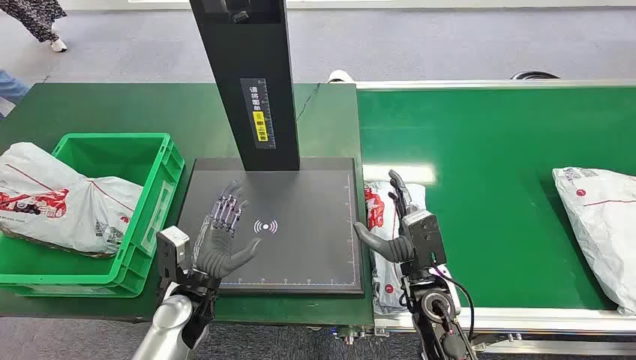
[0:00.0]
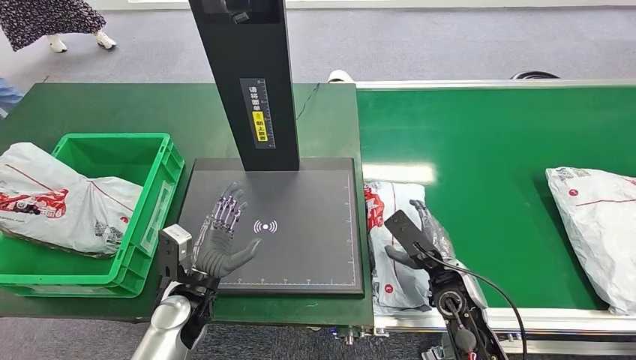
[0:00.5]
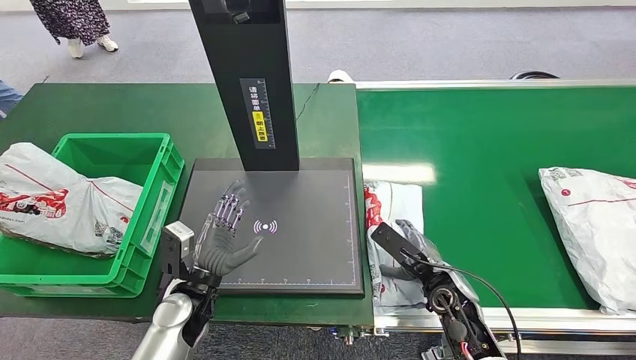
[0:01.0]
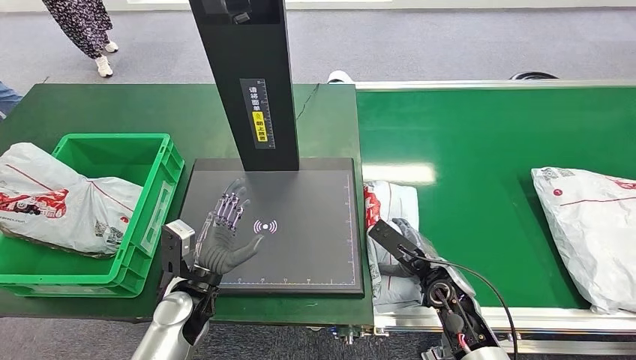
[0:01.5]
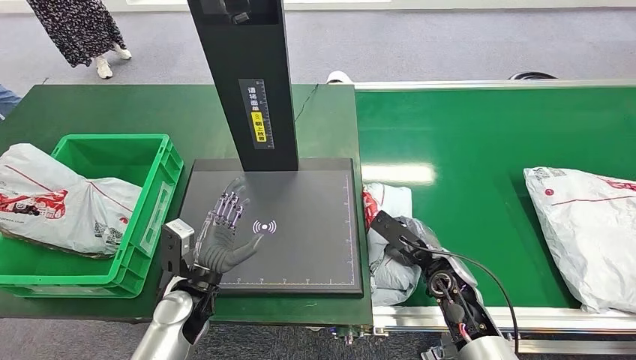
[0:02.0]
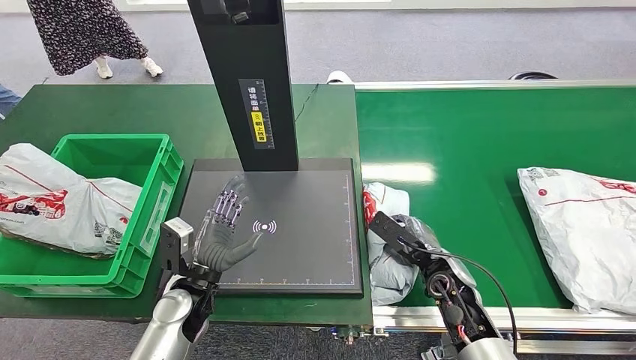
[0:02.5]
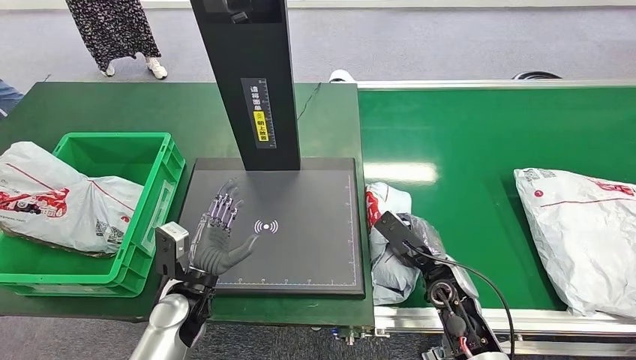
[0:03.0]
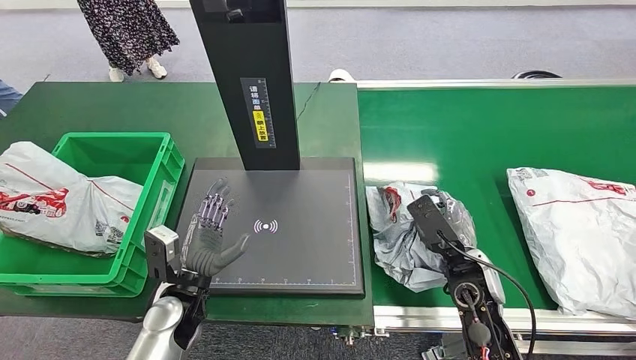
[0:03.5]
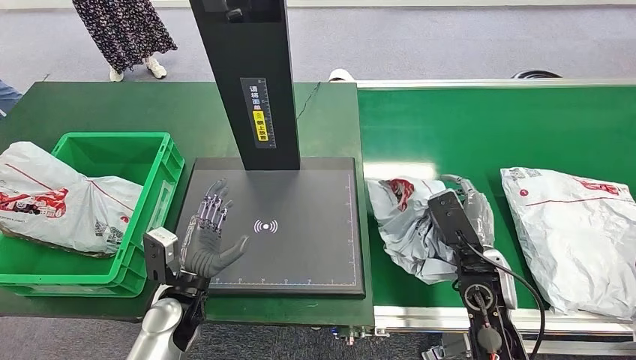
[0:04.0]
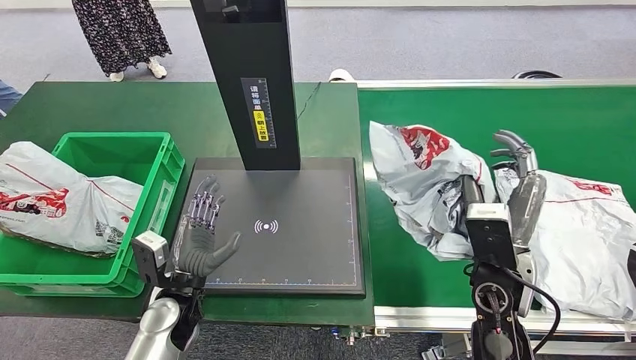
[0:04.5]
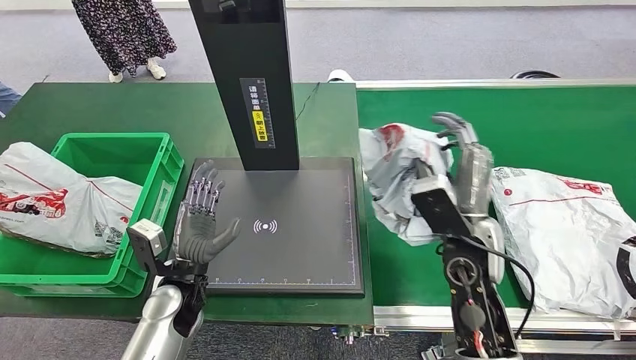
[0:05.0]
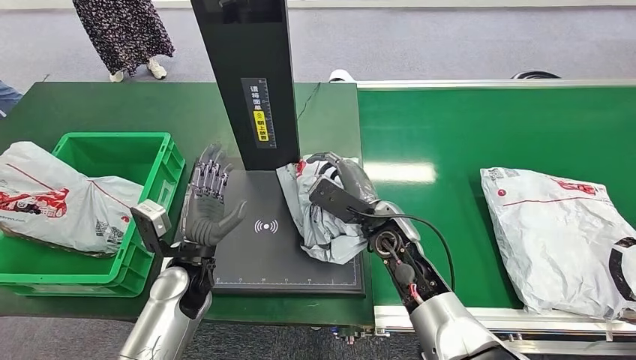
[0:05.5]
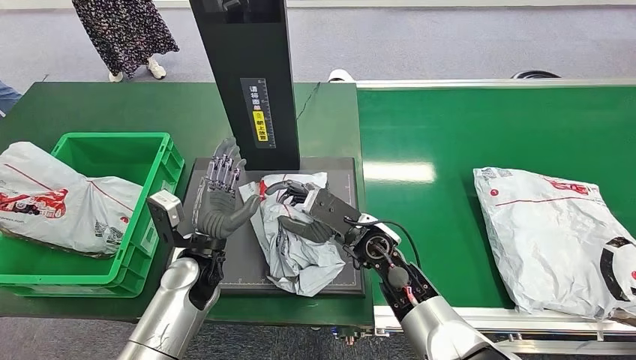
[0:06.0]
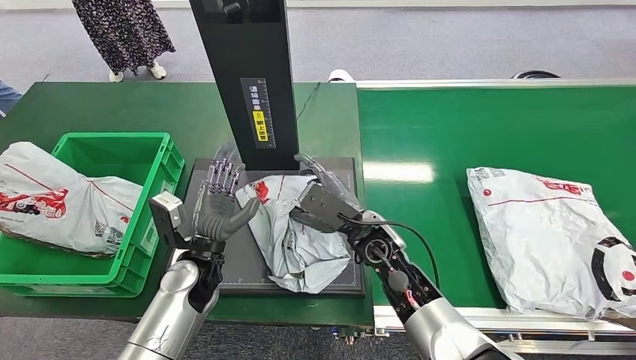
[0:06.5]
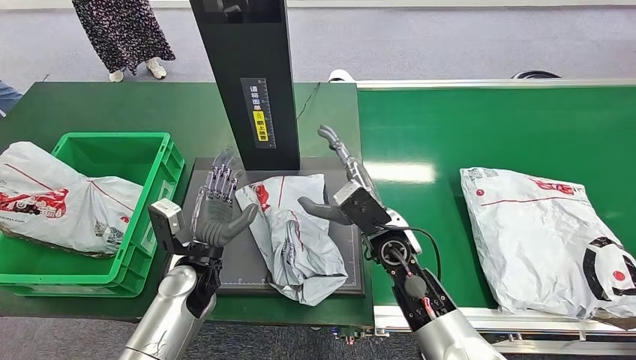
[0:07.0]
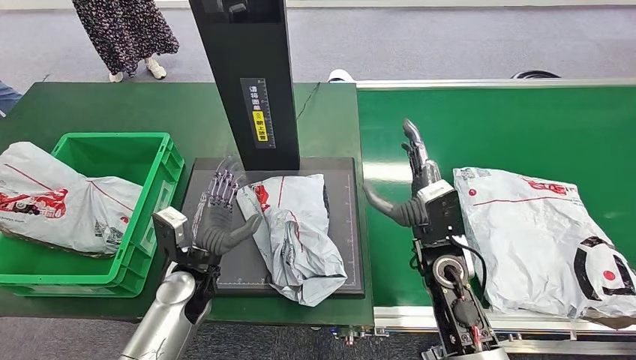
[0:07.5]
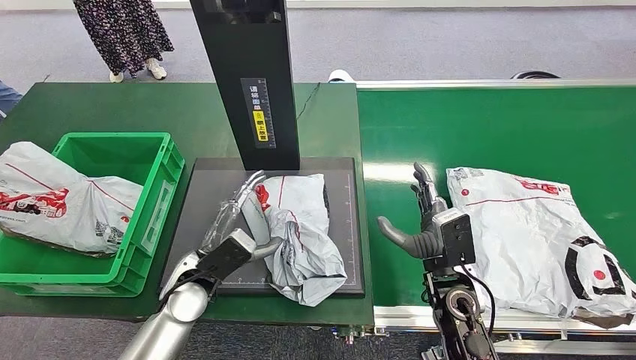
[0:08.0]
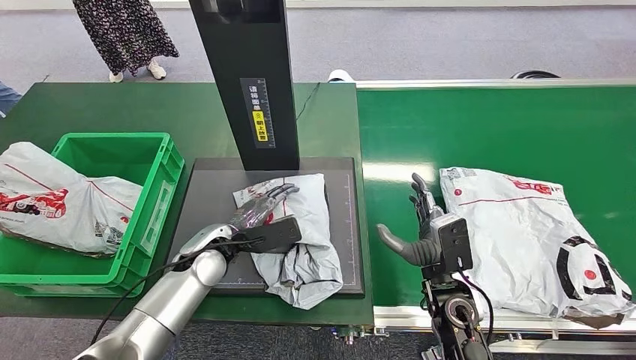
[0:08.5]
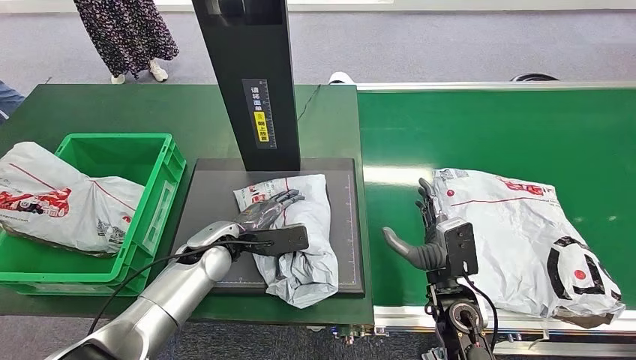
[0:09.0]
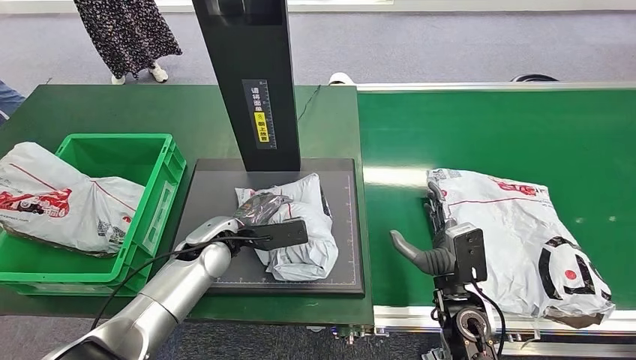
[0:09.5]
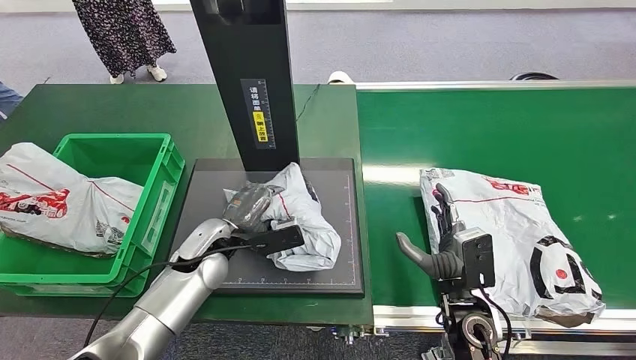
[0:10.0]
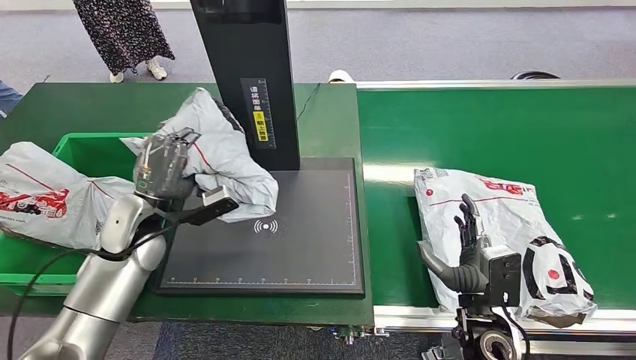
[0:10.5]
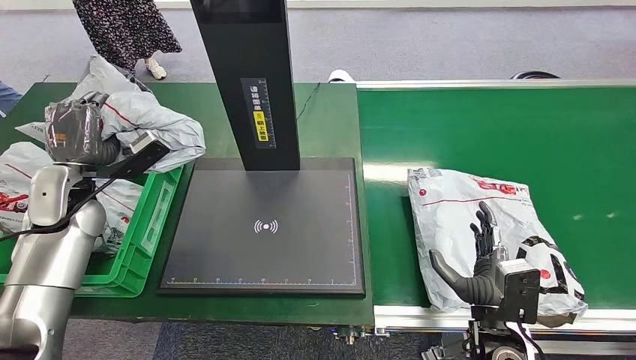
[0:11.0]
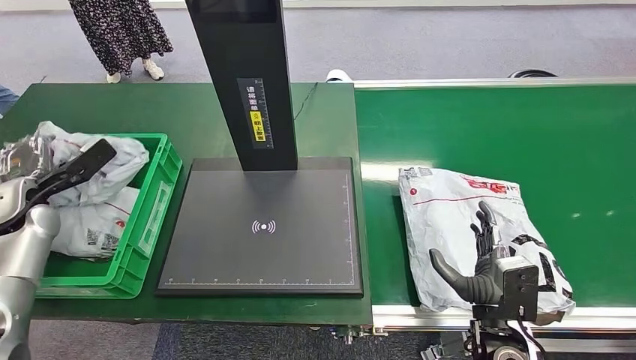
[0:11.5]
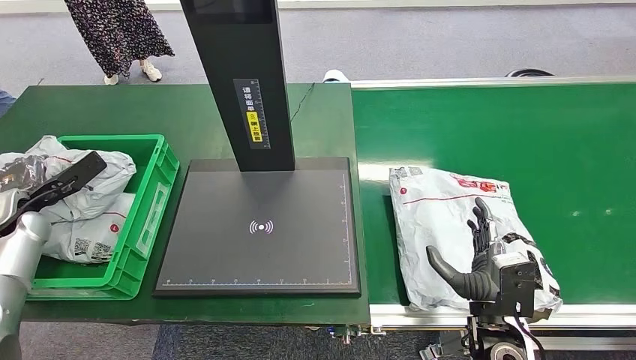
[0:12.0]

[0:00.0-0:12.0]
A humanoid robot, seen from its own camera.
Step, 0:00.0 to 0:04.0: Pick up the package from the conveyor belt.
Step, 0:04.5 to 0:07.5: Place the package onto the inbound machine.
Step, 0:08.0 to 0:10.5: Pick up the package from the inbound machine.

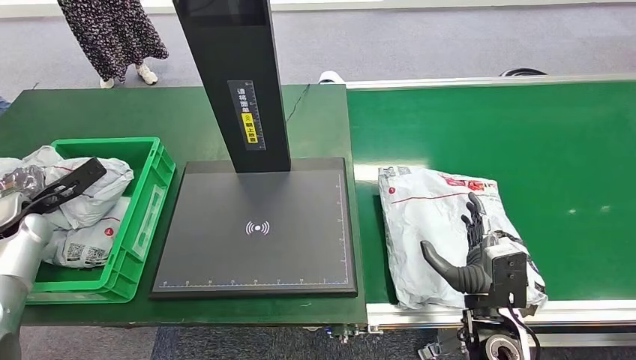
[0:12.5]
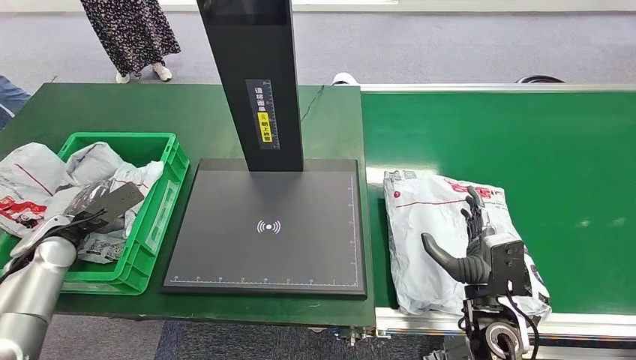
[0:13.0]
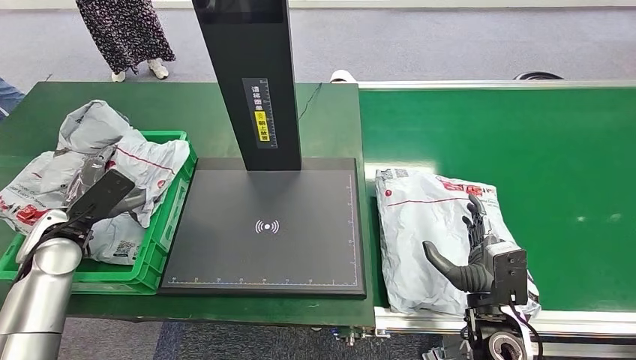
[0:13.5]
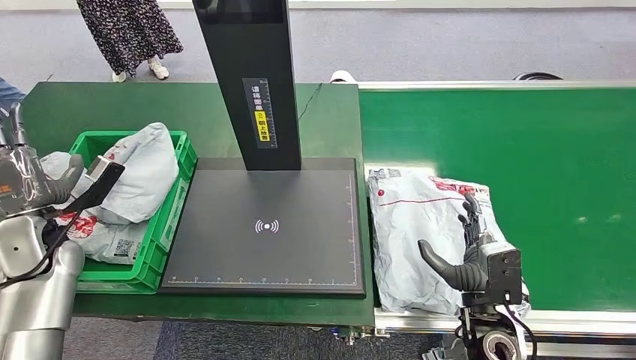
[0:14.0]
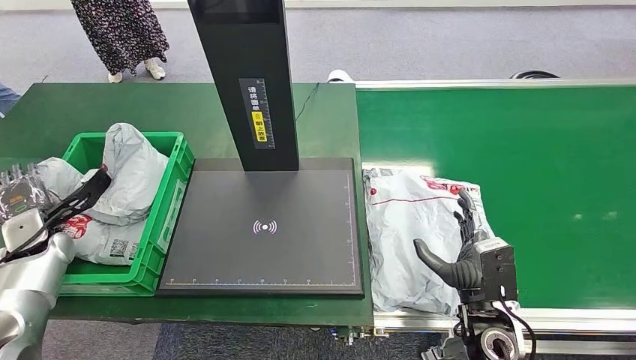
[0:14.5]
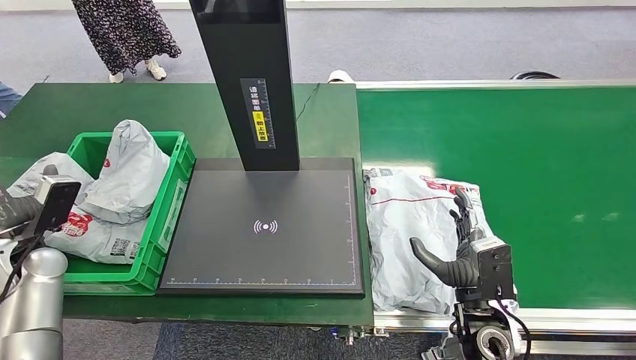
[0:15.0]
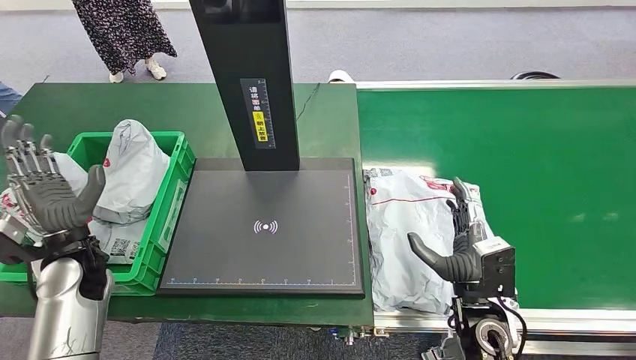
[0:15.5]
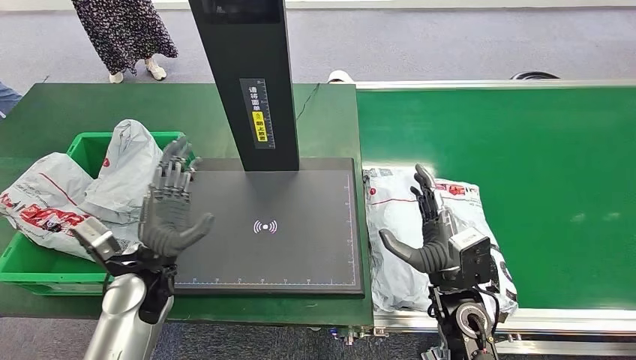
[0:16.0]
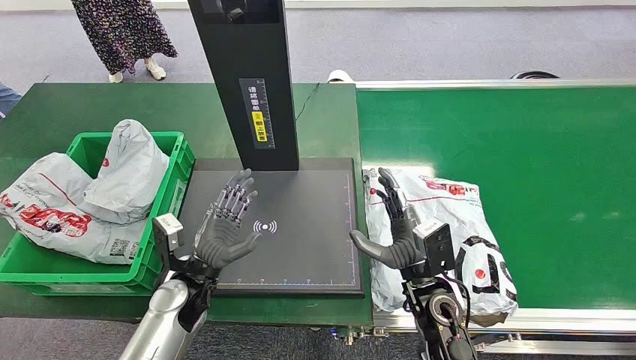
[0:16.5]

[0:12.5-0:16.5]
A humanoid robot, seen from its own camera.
Step, 0:12.5 to 0:16.5: Place the package into the parcel locker.
0:14.5 to 0:16.5: The right hand goes roughly 10 cm to the left; the left hand heads to the right, covering about 30 cm.
